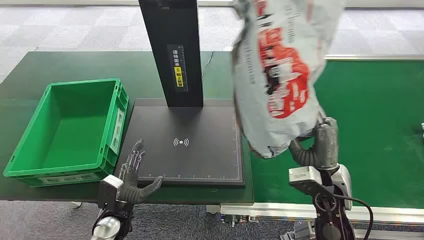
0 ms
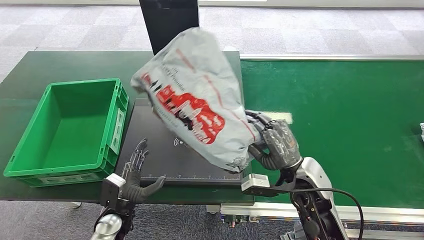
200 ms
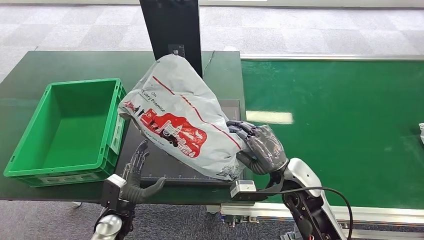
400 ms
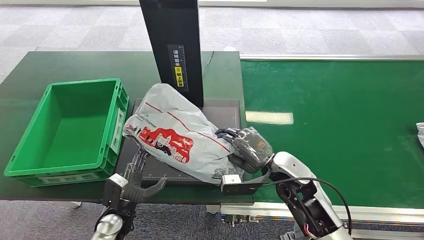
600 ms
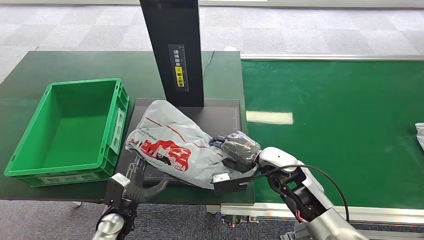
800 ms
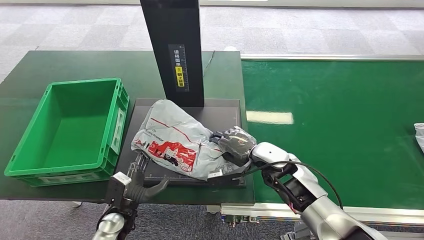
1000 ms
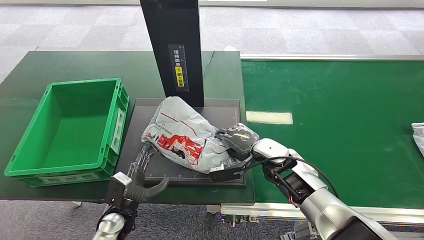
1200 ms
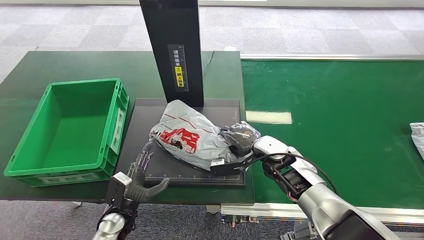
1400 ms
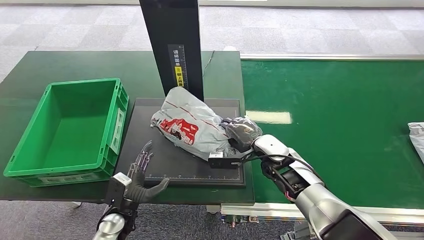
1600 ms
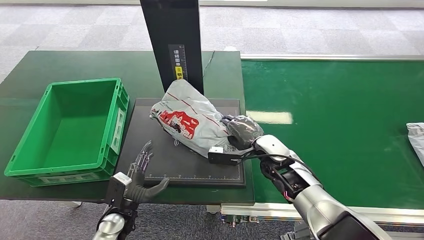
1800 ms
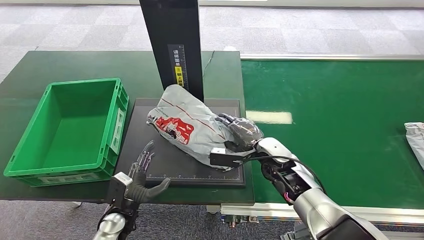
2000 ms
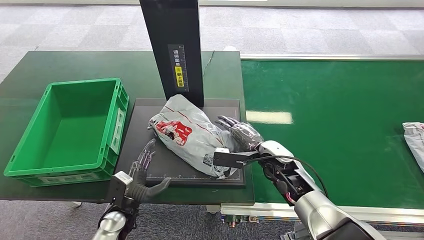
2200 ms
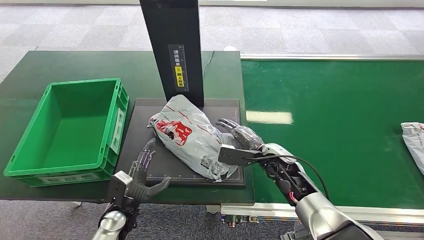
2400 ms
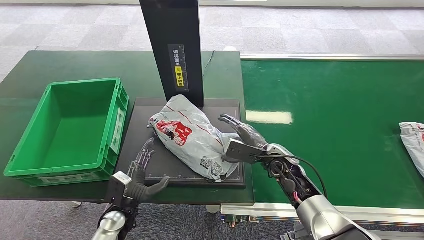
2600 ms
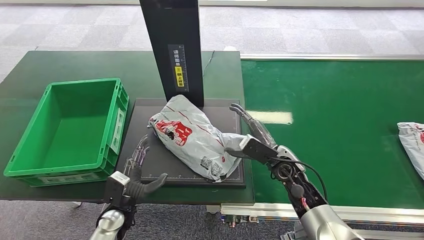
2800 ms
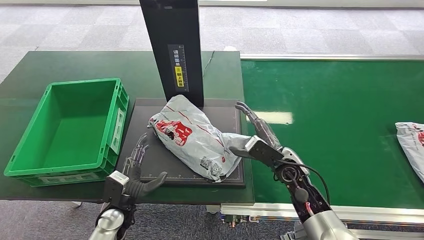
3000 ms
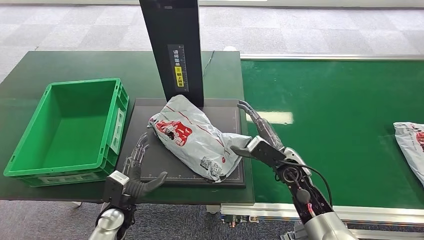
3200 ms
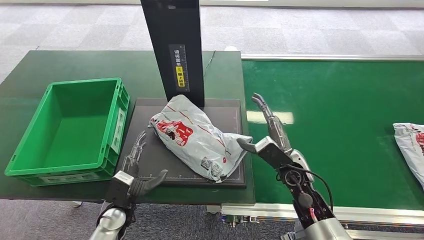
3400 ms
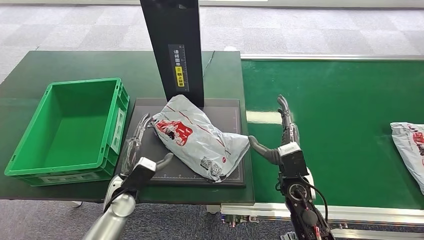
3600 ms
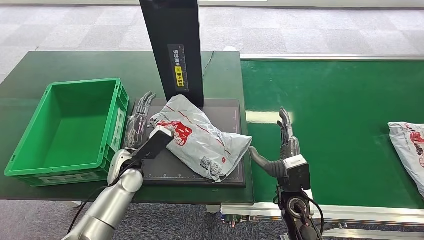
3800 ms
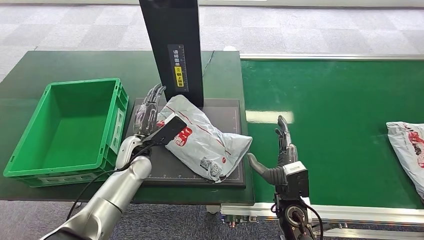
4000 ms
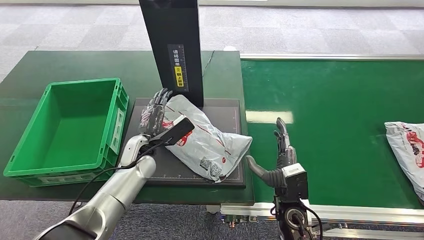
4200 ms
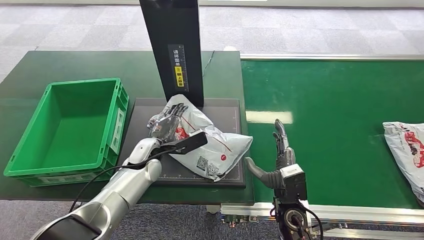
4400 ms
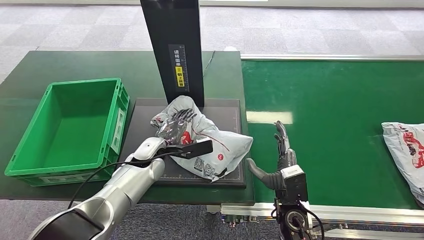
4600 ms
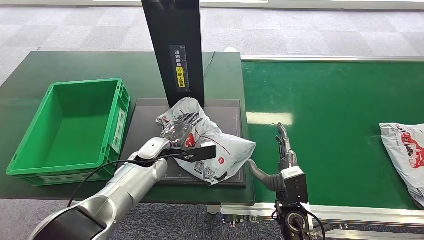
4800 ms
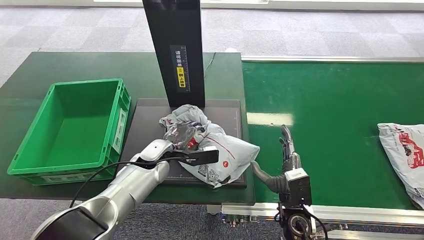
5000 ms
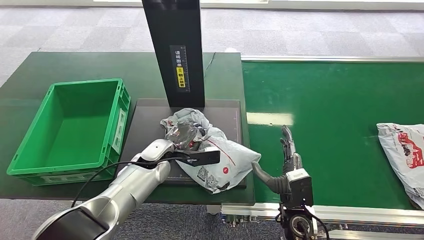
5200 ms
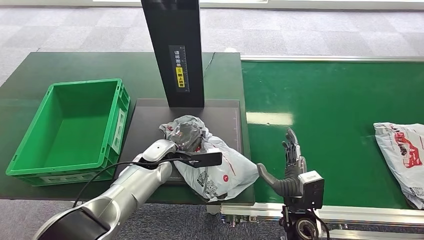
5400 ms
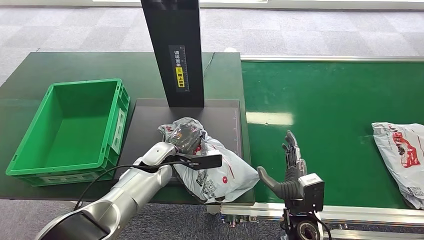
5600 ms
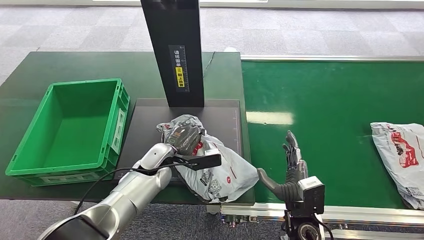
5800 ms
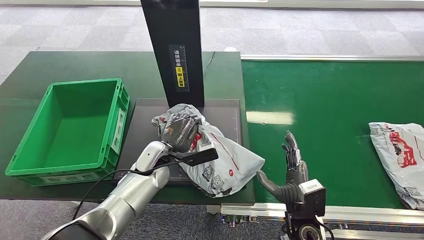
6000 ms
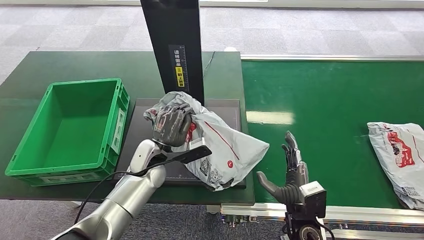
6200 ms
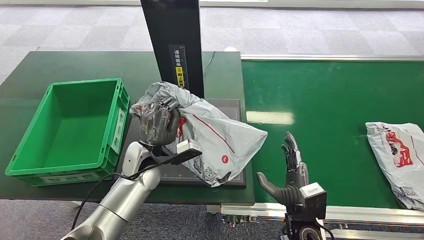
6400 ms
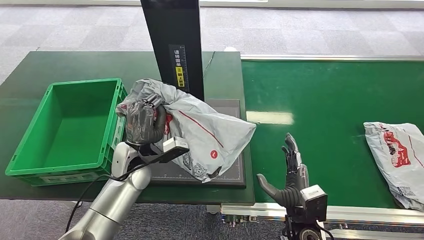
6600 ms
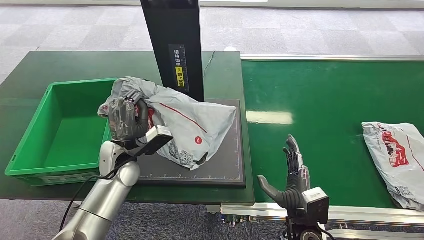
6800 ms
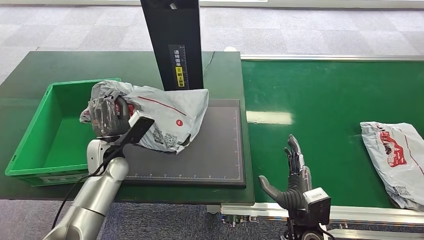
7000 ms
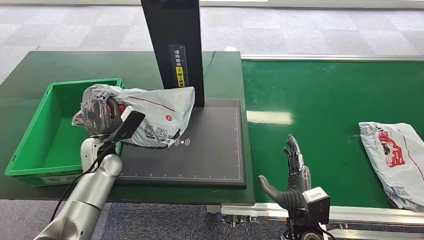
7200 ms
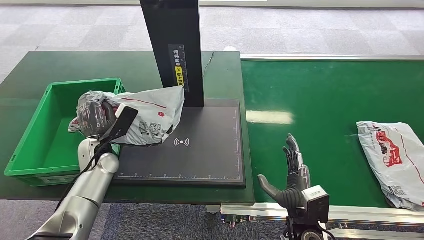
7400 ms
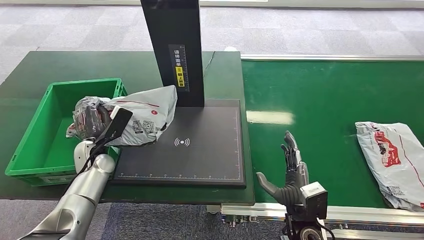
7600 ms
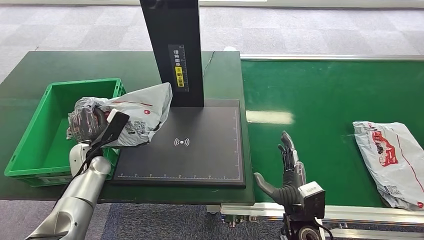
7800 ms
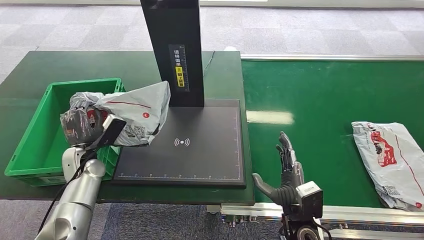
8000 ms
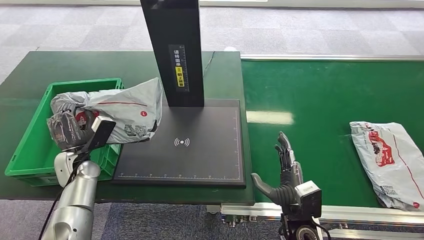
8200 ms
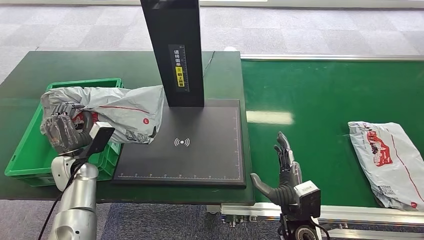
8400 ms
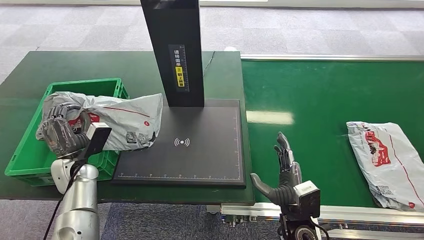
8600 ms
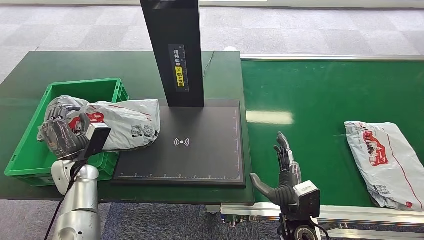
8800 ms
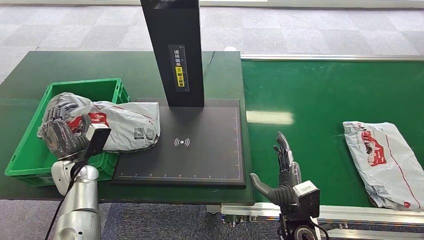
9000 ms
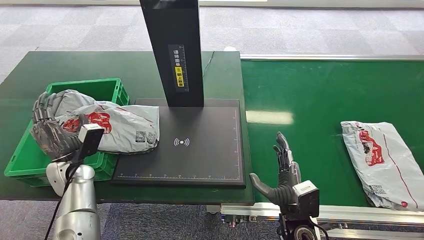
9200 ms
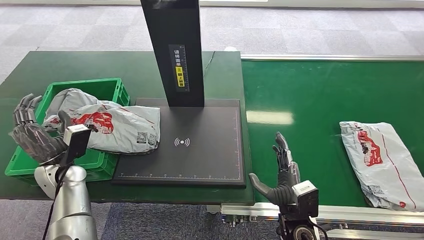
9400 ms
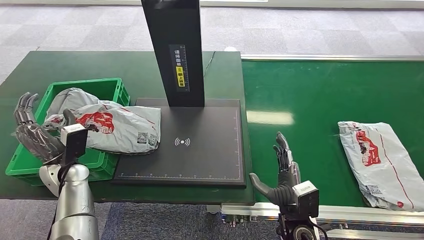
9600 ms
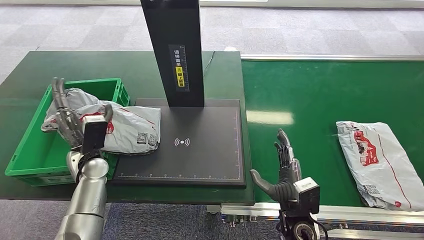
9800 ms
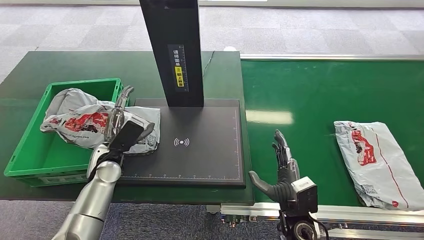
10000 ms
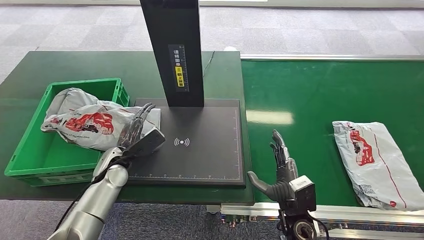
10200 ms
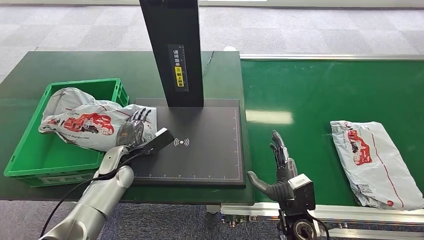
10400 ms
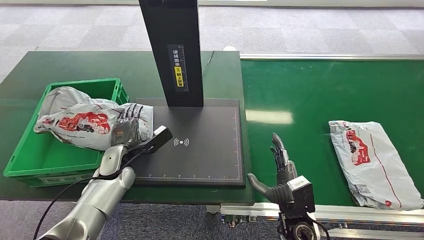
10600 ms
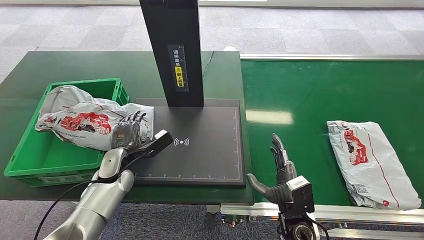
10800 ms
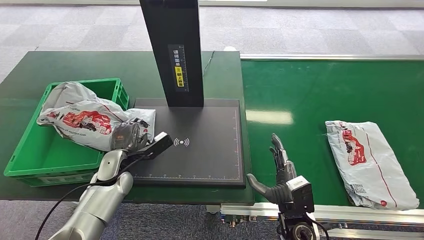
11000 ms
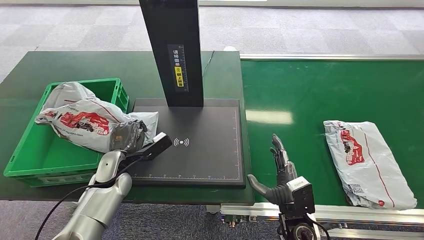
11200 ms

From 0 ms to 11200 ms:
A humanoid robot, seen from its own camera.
Step, from 2000 ms to 2200 ms: Place the package onto the inbound machine.
From 1600 ms to 3200 ms: The right hand shifts by some 5 cm.
From 9600 ms to 11200 ms: The left hand moves to the right, approximately 10 cm.

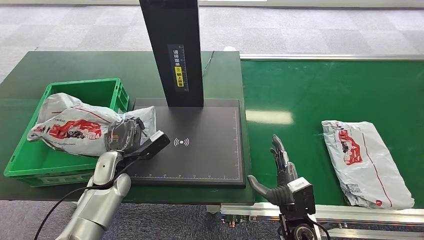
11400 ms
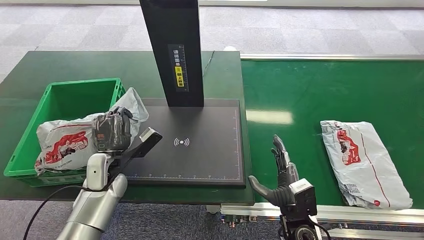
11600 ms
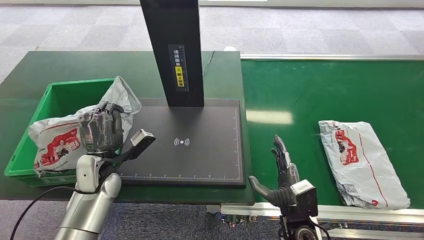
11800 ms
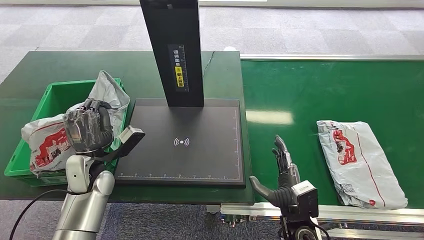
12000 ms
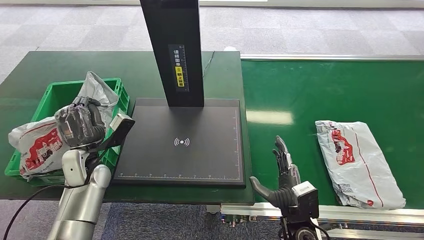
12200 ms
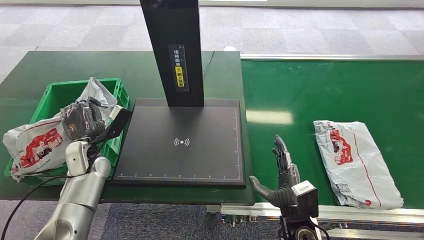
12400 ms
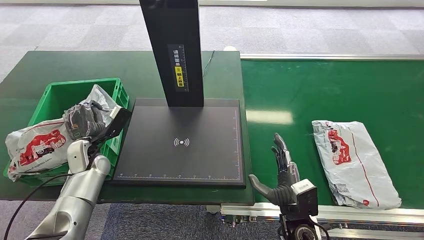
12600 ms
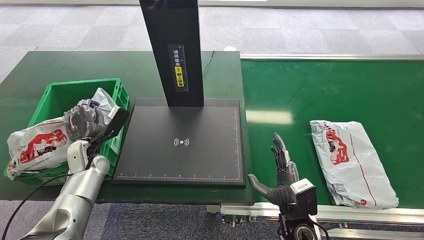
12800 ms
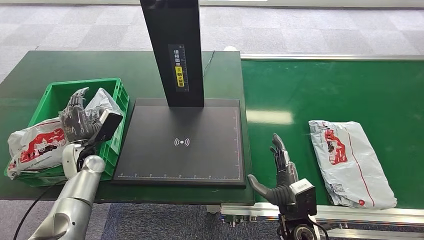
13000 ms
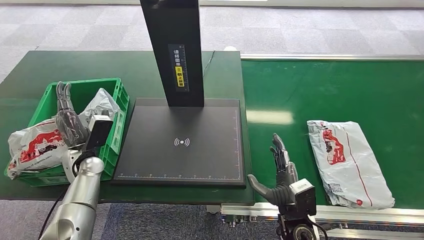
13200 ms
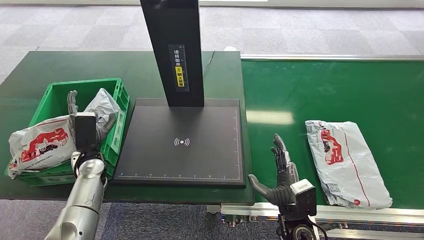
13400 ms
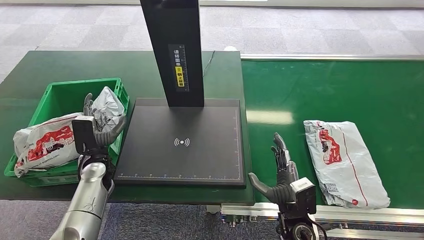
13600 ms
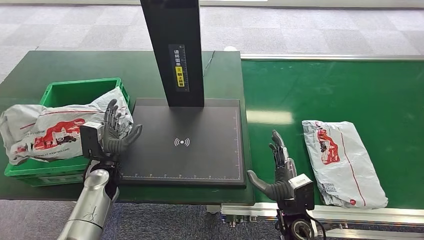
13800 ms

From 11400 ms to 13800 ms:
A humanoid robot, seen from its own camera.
From 11400 ms to 12600 ms: The left hand travels to the left by approximately 10 cm.
From 12600 ms to 13800 ms: The left hand moves to the right, roughly 5 cm.

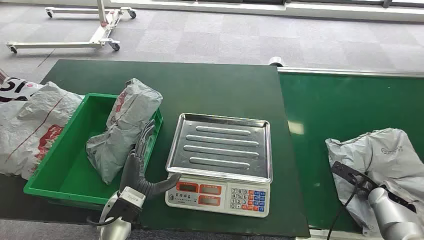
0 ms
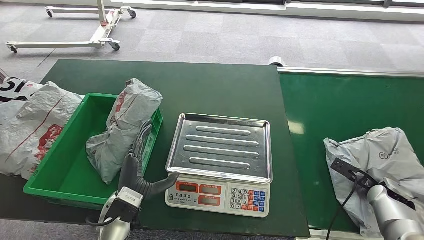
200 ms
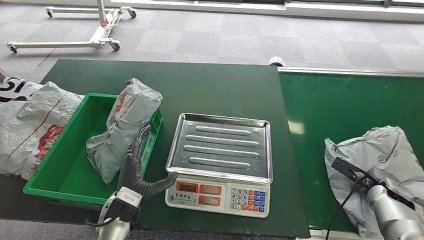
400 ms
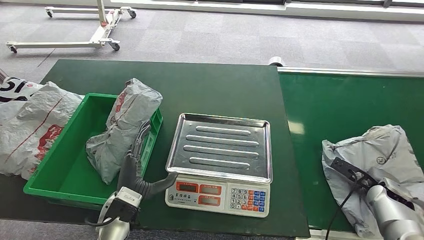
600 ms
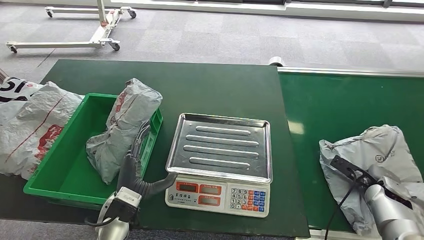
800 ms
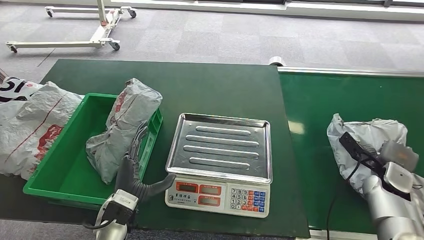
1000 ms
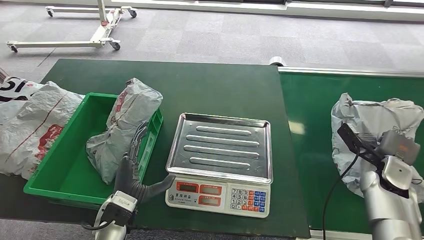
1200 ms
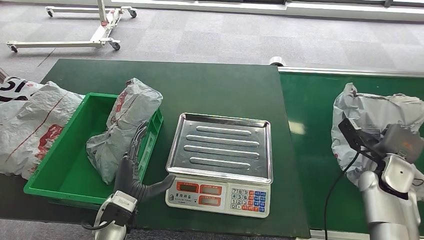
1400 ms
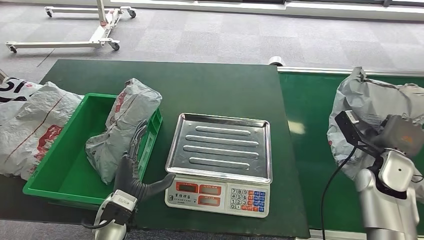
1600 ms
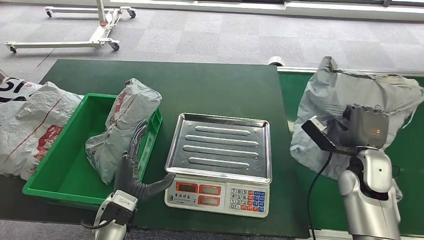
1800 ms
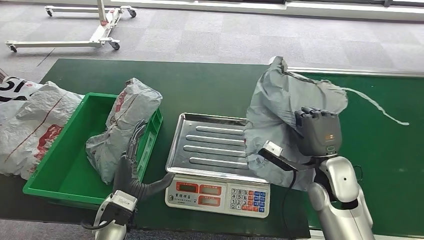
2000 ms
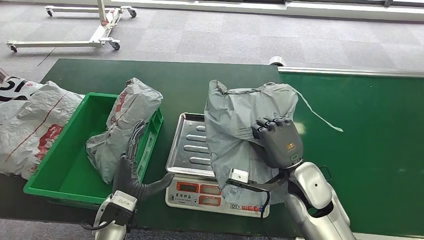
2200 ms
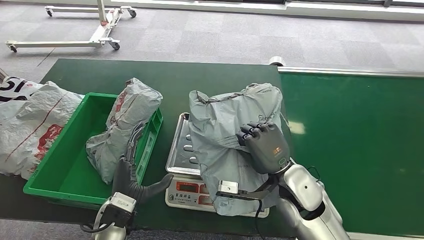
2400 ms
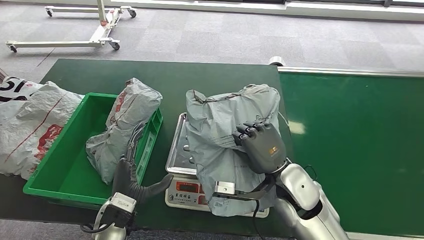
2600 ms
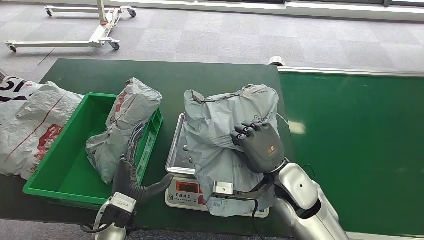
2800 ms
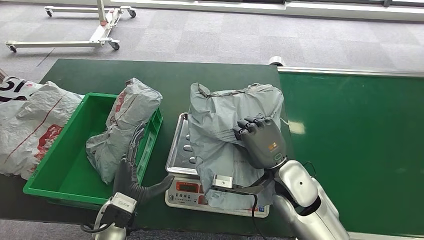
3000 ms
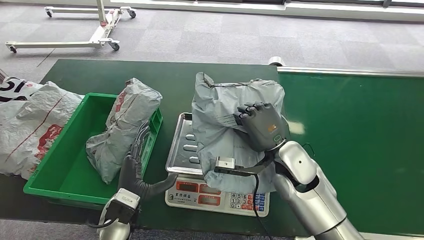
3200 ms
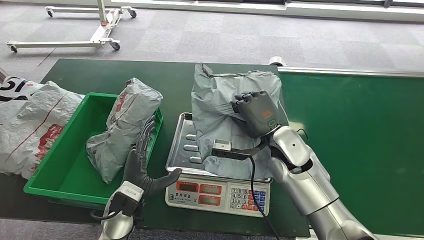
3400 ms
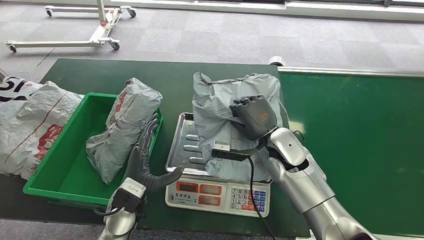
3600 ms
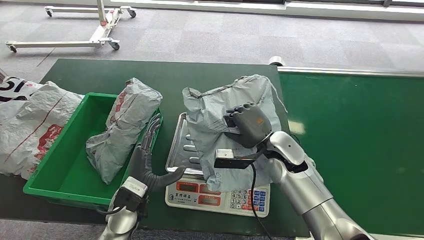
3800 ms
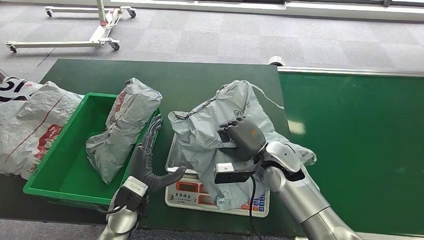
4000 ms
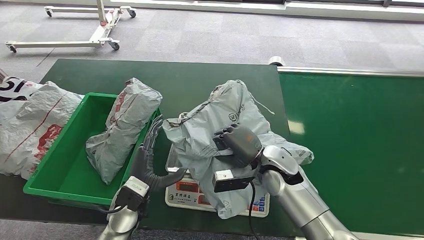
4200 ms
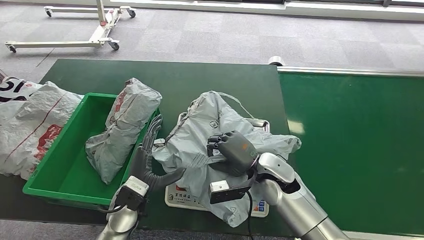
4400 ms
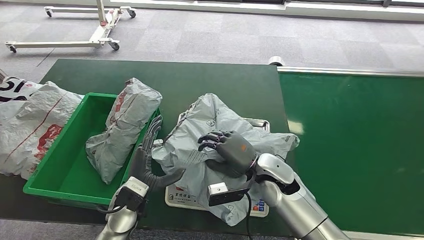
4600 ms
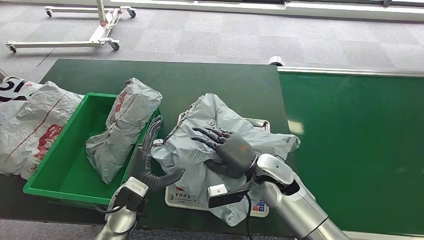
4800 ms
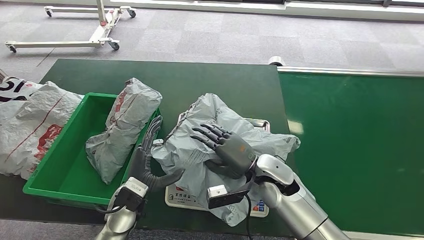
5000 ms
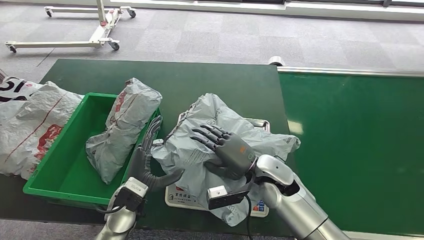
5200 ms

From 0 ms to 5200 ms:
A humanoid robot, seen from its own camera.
Step, from 0 ms to 2600 ms: Pick up the package from the conveyor belt.
From 3400 ms to 5200 ms: The right hand travels downward by about 5 cm.
